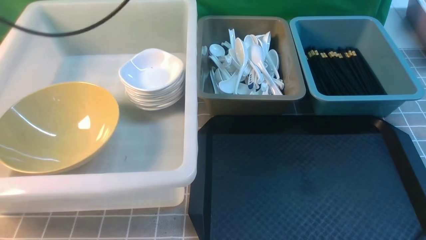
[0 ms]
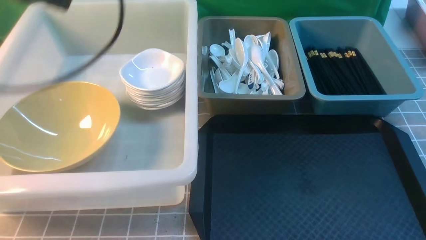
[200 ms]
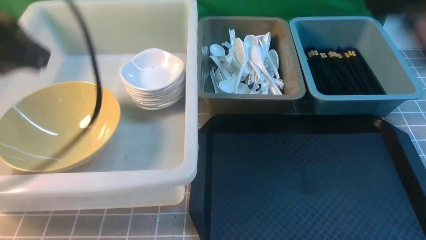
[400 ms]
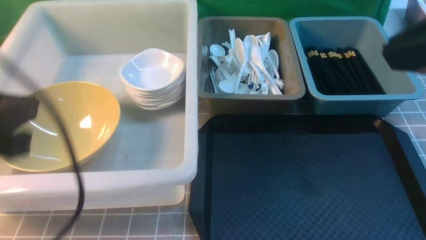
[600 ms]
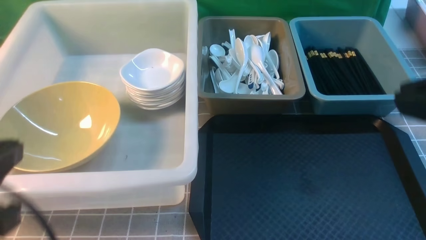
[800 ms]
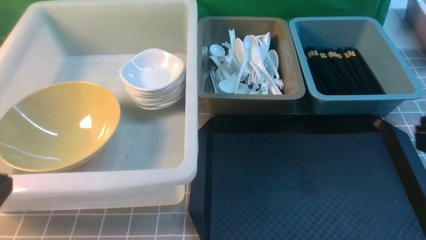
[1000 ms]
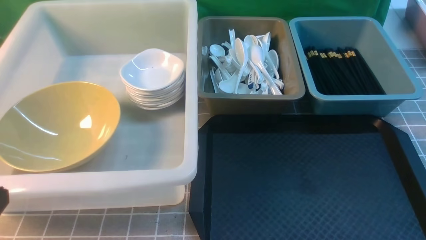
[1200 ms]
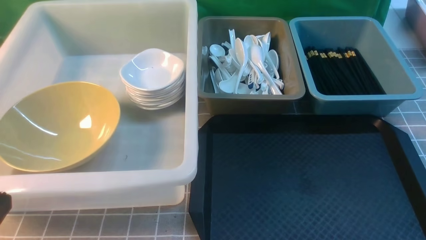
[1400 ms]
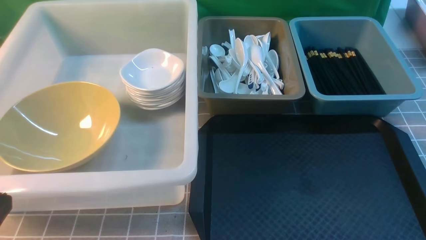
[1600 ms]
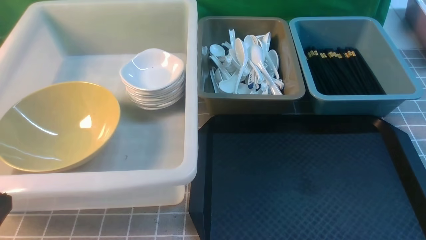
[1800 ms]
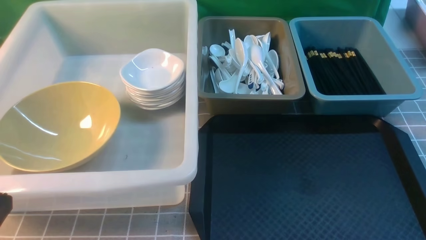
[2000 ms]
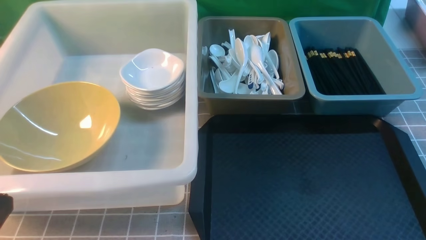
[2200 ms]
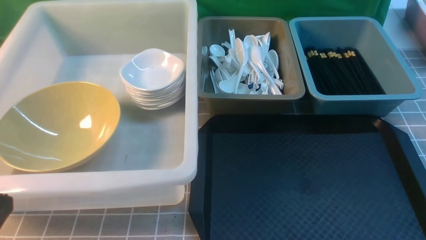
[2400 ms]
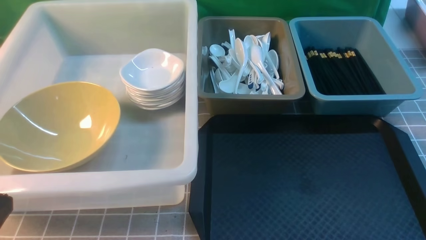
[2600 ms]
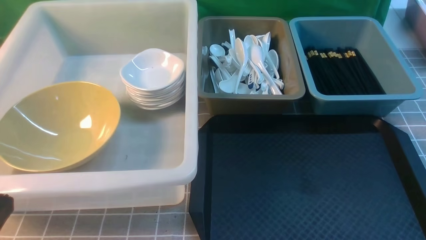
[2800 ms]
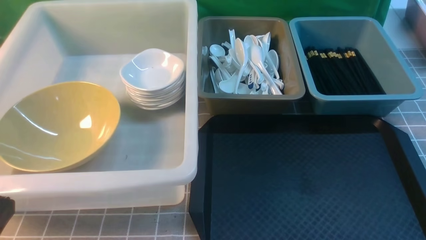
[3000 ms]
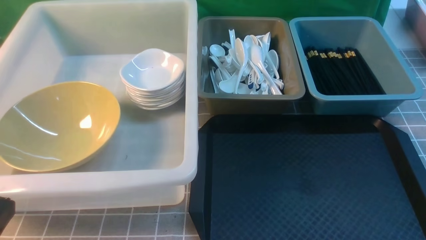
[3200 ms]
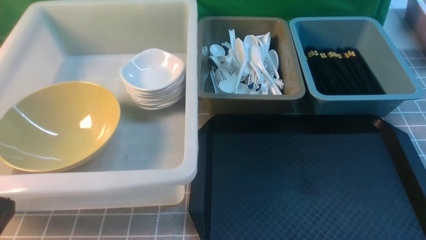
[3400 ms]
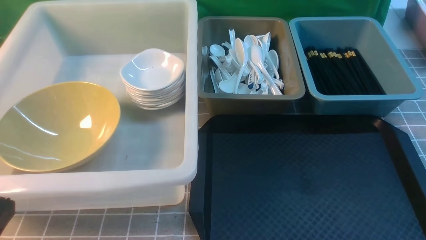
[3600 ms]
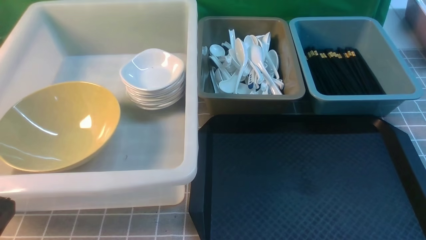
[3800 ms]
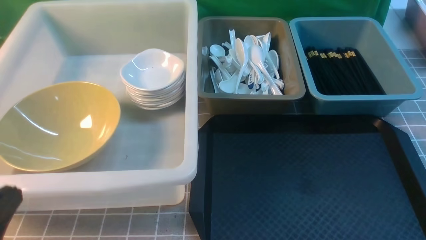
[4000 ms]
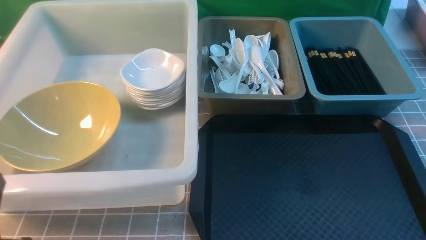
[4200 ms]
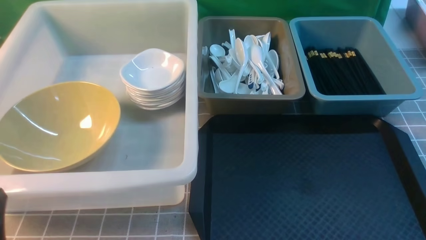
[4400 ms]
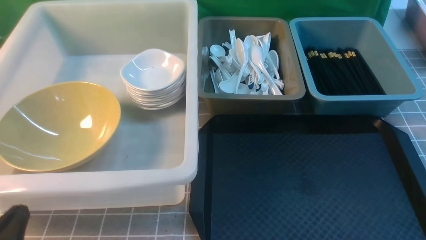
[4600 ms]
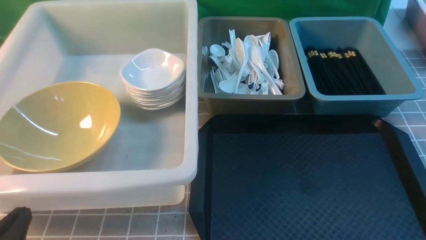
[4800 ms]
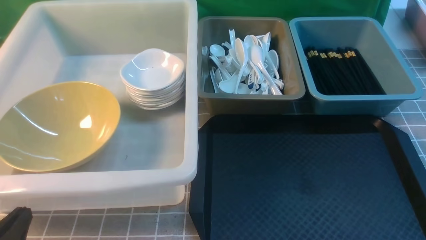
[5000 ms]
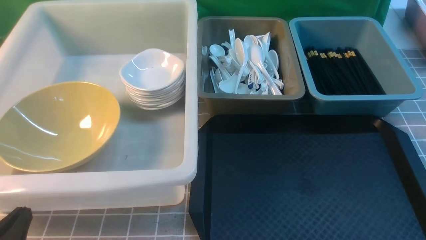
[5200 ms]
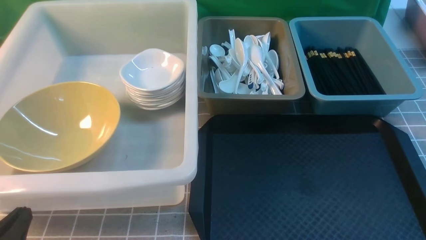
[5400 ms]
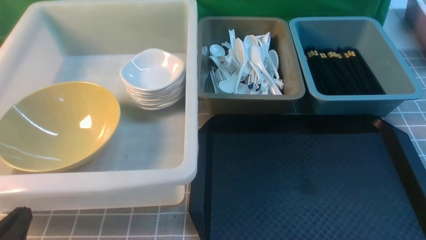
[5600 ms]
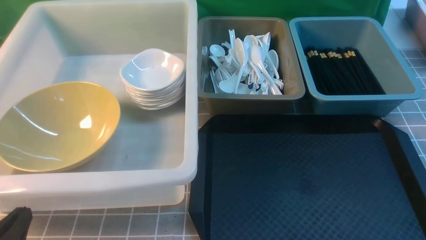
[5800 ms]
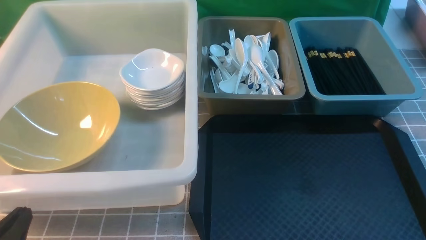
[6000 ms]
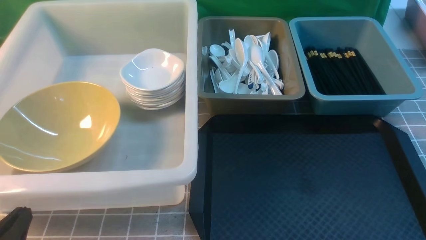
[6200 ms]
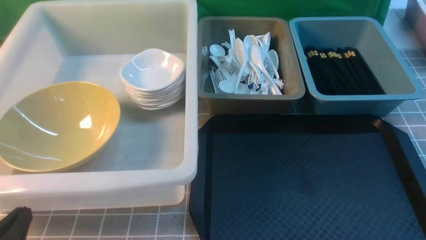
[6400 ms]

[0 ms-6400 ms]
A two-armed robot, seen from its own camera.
Task of the whole recording: on grey table put chopsticks spoon bowls plates into blue grey white boxes.
0 ms to 1600 ms: The right gripper moves backward, downward and to the right, approximately 25 cm. Meanwhile the left gripper travels backward and downward by approximately 35 cm, and closes.
3200 ms to 4800 ms: The left gripper moves downward, some 10 cm.
4800 ms to 6400 ms: Both grippers stay about where they are.

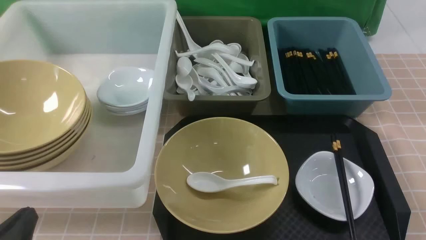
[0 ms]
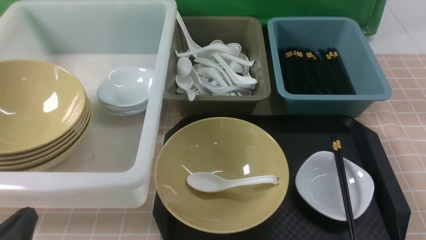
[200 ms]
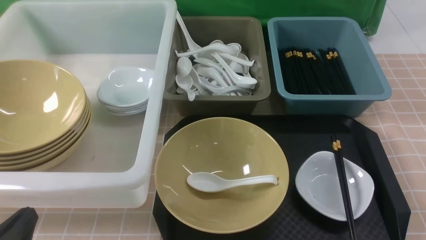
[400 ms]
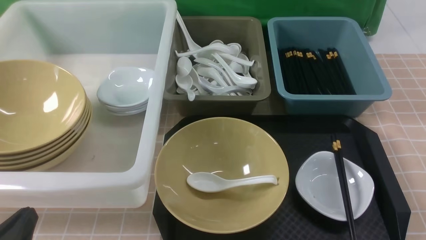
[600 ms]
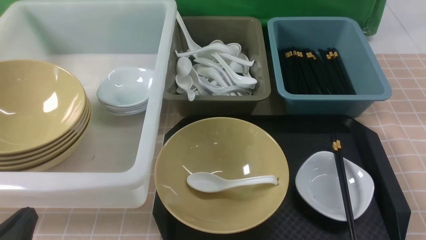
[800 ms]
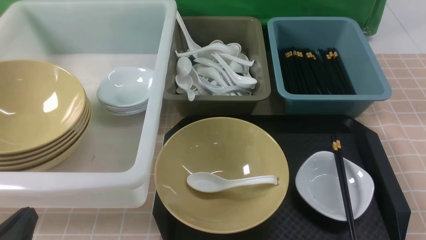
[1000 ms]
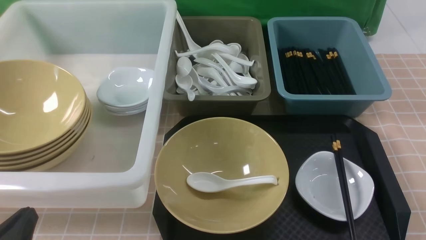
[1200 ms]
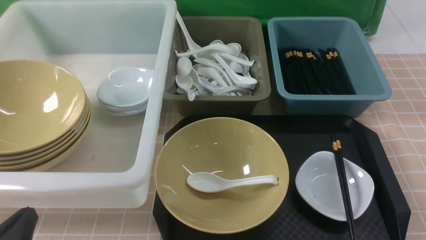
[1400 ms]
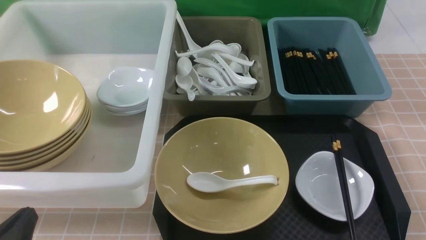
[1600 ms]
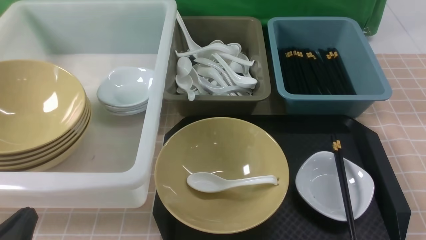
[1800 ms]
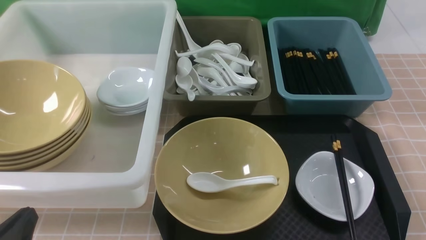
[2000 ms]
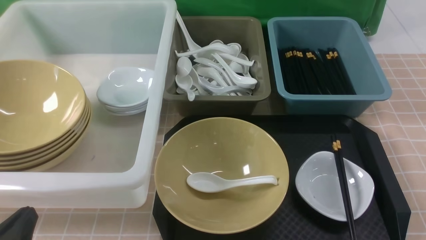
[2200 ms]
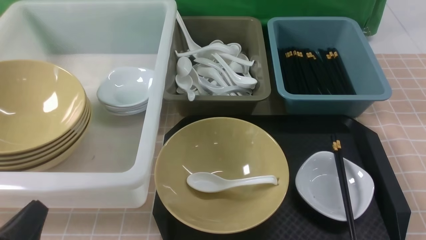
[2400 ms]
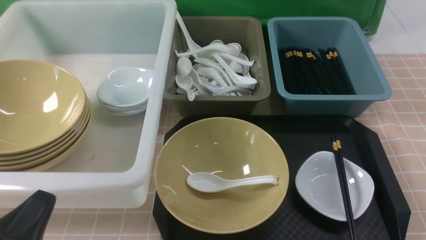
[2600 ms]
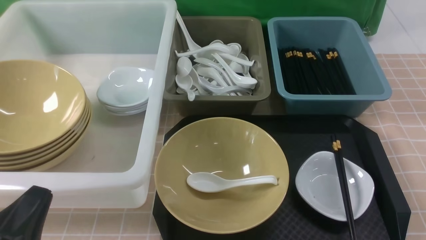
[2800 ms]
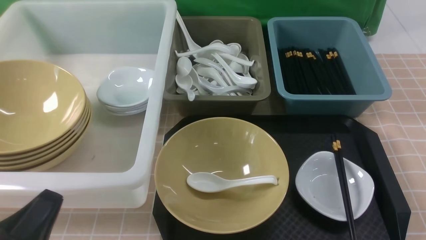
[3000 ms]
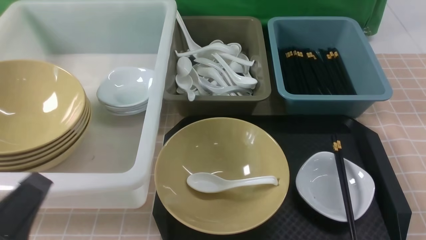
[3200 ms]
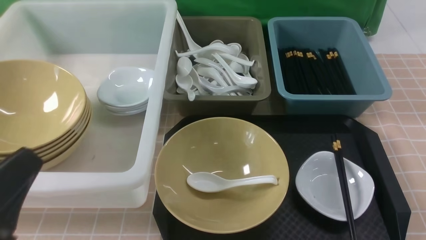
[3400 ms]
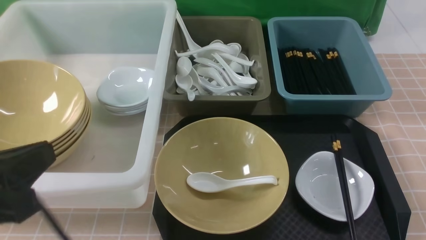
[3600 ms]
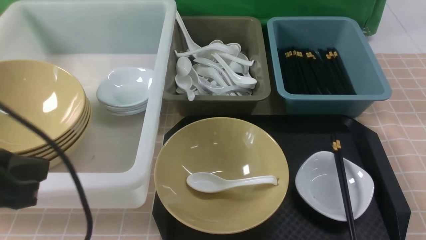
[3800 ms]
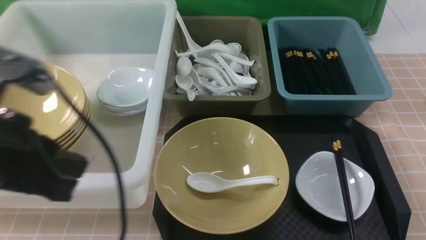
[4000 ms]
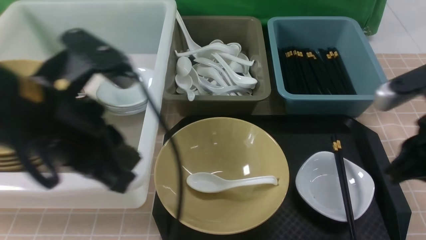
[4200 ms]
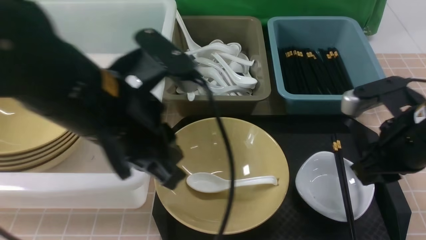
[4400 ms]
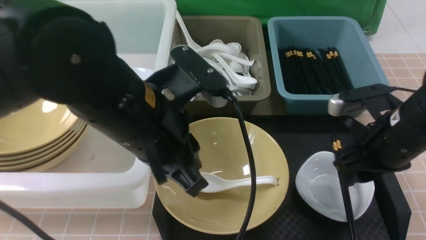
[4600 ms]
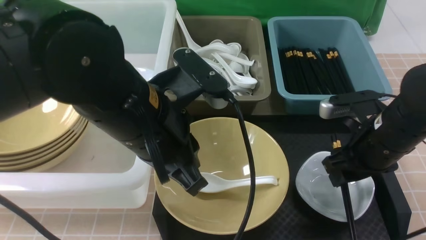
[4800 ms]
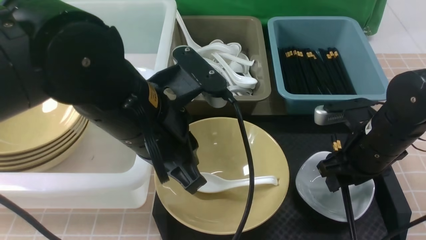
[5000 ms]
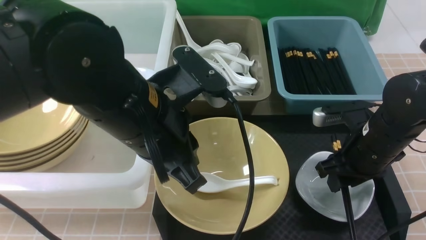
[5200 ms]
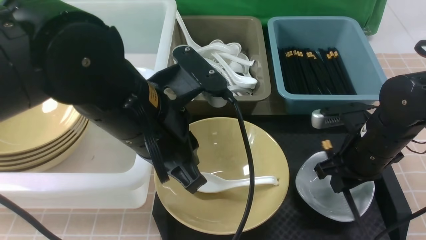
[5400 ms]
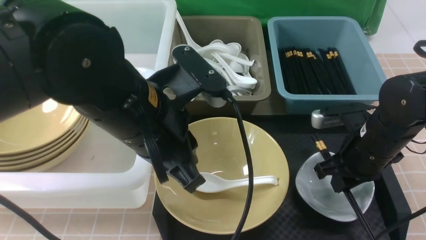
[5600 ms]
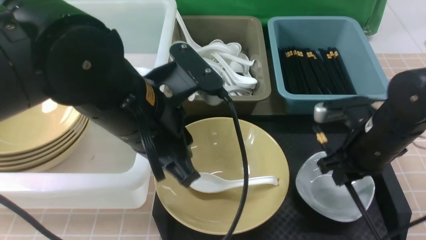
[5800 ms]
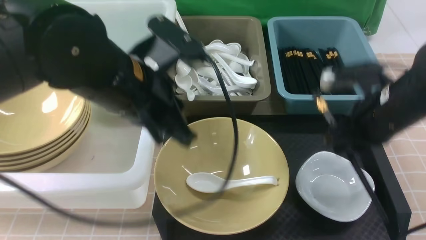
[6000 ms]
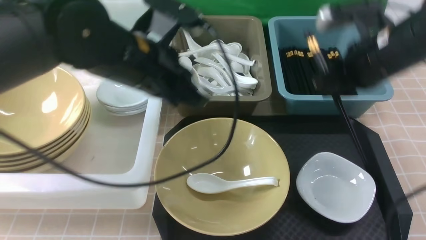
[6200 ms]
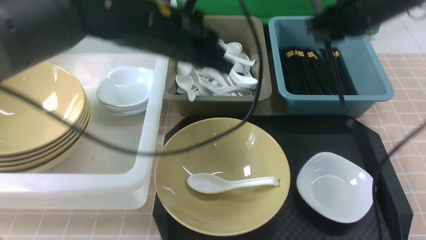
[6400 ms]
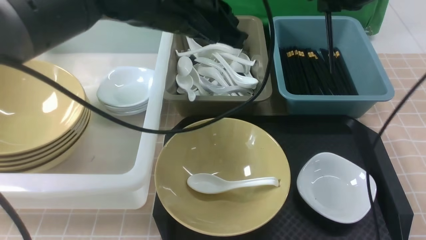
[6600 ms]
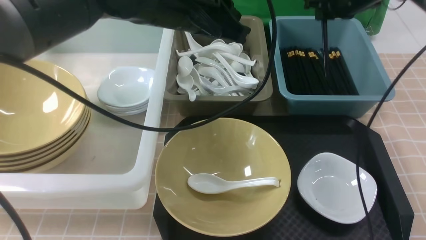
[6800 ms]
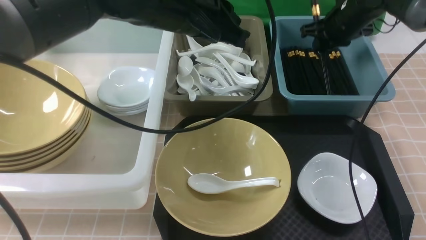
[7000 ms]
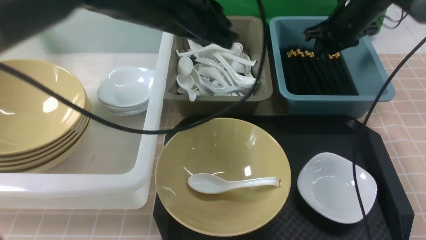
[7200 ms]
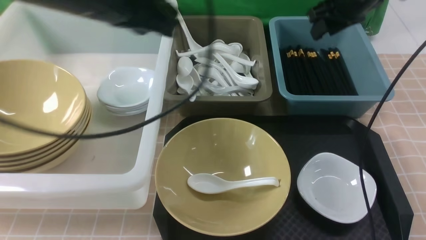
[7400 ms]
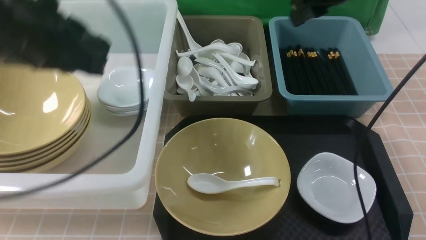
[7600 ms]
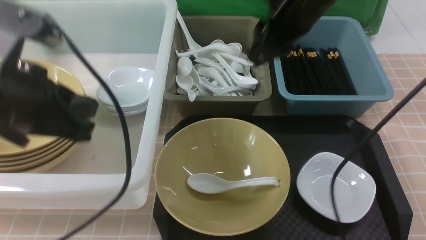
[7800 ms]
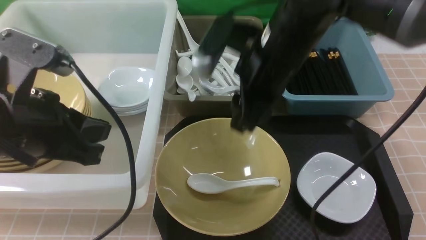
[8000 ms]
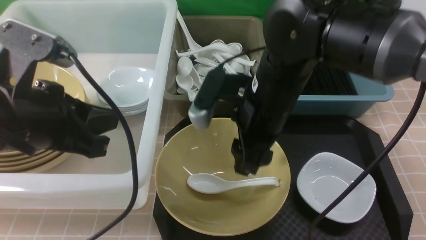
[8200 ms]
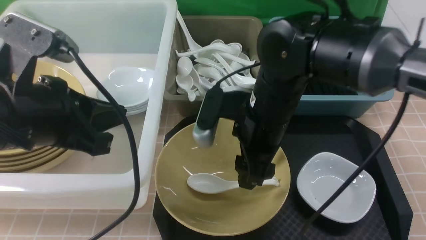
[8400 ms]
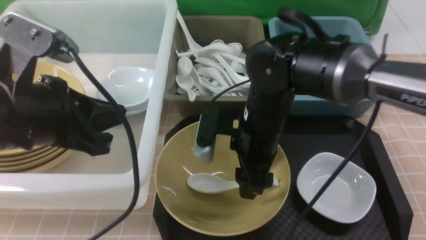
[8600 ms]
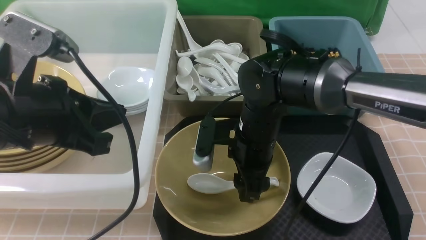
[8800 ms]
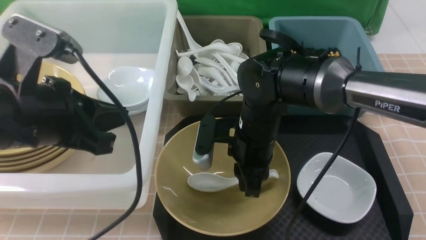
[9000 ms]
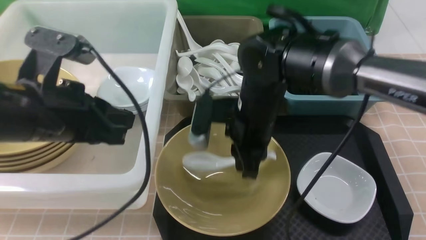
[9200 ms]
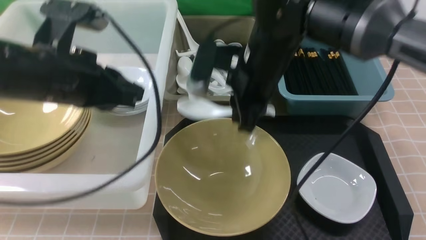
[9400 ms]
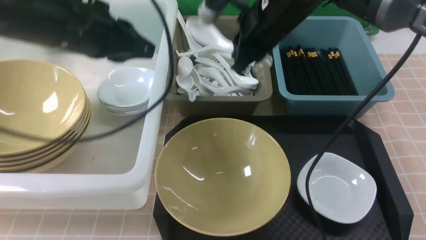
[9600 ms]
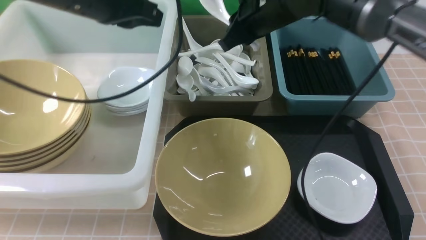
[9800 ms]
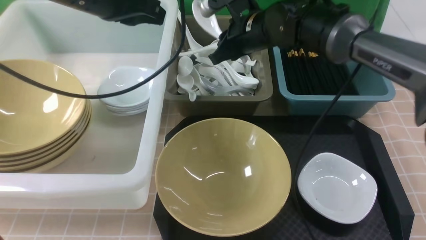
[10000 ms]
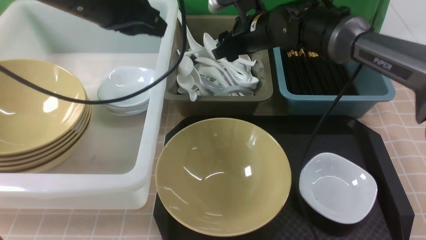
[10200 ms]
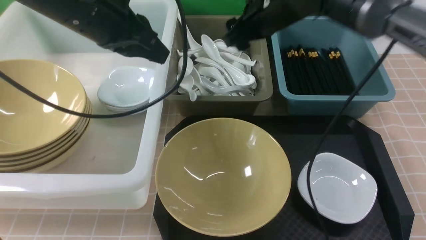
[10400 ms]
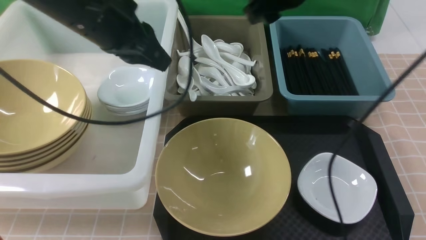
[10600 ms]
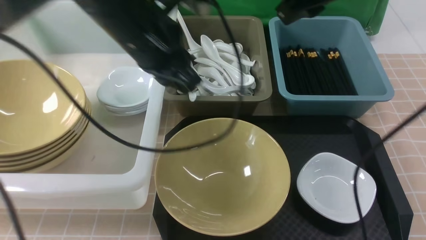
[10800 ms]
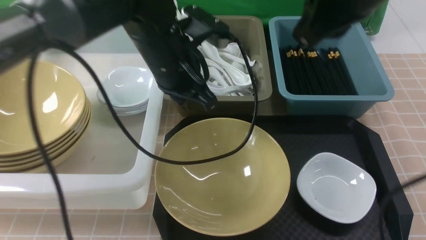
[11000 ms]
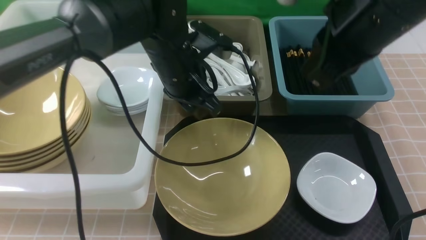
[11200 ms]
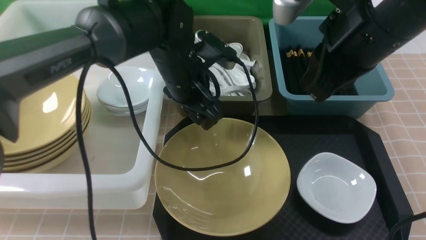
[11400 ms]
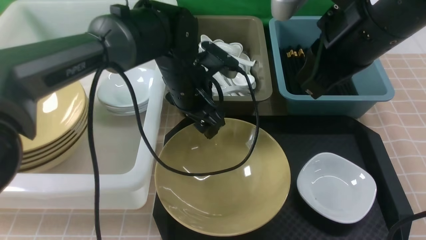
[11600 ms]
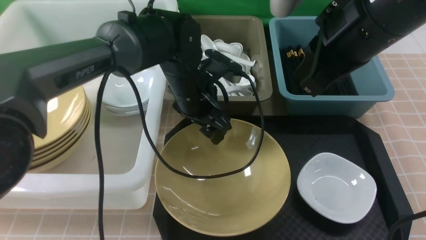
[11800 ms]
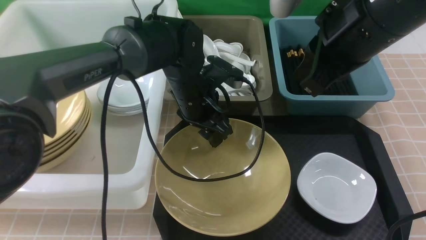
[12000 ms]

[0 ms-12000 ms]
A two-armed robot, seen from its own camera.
Task of the whole recording: on brown table put chopsticks spoon bowls plates into blue grey white boxes.
Step, 0 ms to 5800 ms: use the right arm to grab the chopsticks.
Step, 6000 ms to 7200 ms: use the right arm to put the chopsticks into the small storage box on the right.
Step, 7400 ms to 9200 ms: use the right arm to grab the soup spoon in the middle.
Step, 9400 ms to 10200 ms: use the right arm to put the soup spoon into the small storage box in the middle.
3000 ms to 4400 ms: The left gripper shifts approximately 25 cm upward, forward and to the right; the right gripper shifts about 20 cm forward, upward and to the left.
4400 ms to 6000 ms: Both grippers travel together forward, about 5 cm. The right gripper opens and closes again.
6000 ms to 7600 ms: The right gripper goes about 20 cm forward and upward, and opens its fingers; the left gripper travels to the left and upward by about 10 cm.
7600 ms to 9000 ms: The left gripper goes about 10 cm downward and backward; the right gripper is displaced downward, to the left and backward by approximately 25 cm.
9000 ms to 10400 ms: The right gripper goes about 15 cm forward and upward, and closes, then opens again, while the left gripper travels forward by some 15 cm.
10400 ms to 12000 ms: The left gripper heads downward and to the right, covering roughly 20 cm, and opens up. Meanwhile the right gripper shifts some 20 cm backward and upward, and closes up.
